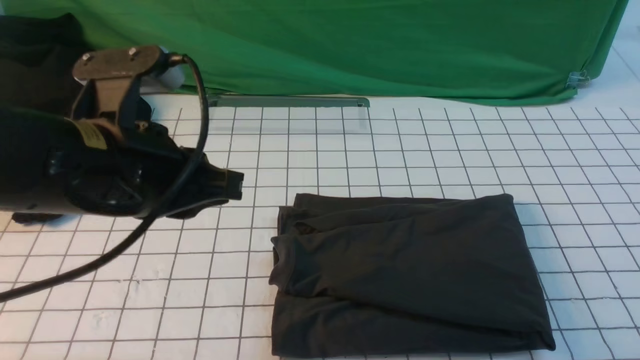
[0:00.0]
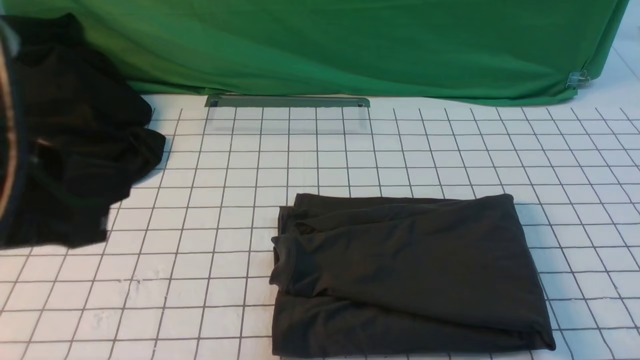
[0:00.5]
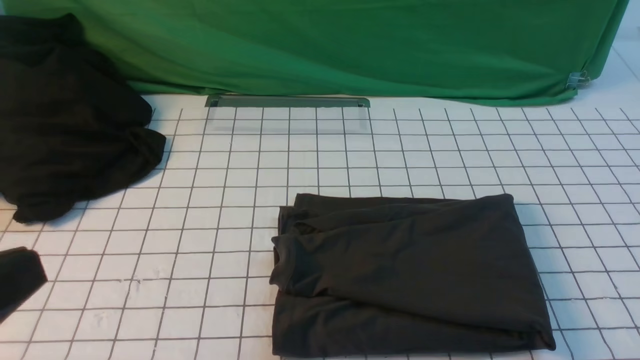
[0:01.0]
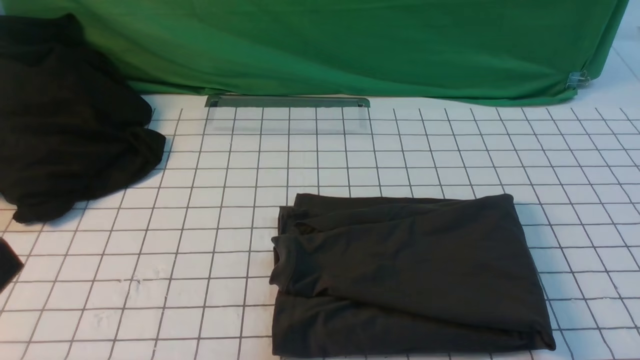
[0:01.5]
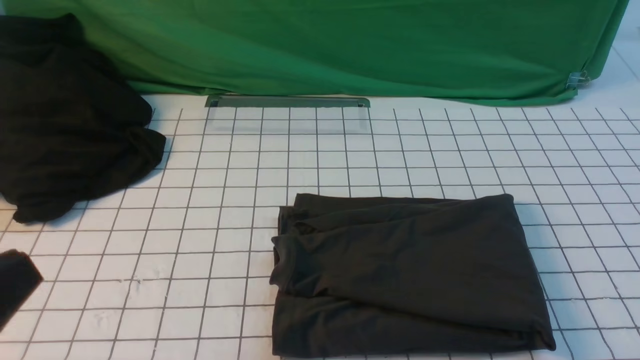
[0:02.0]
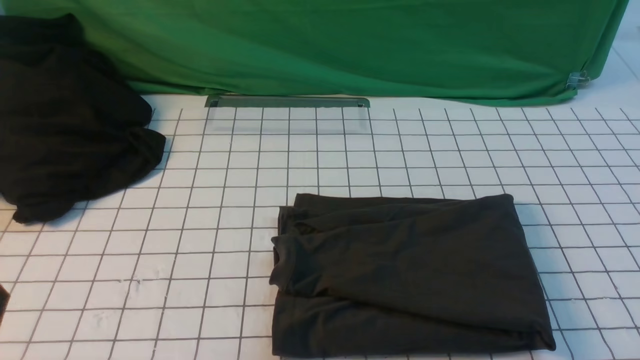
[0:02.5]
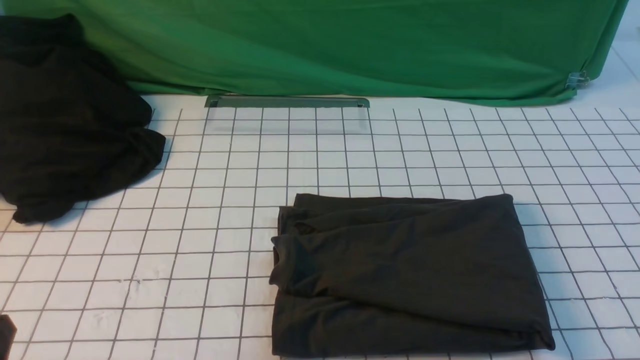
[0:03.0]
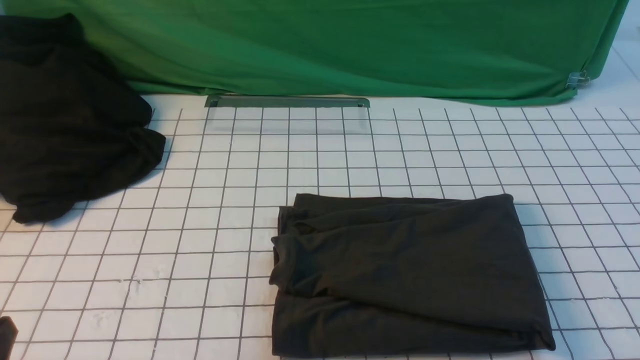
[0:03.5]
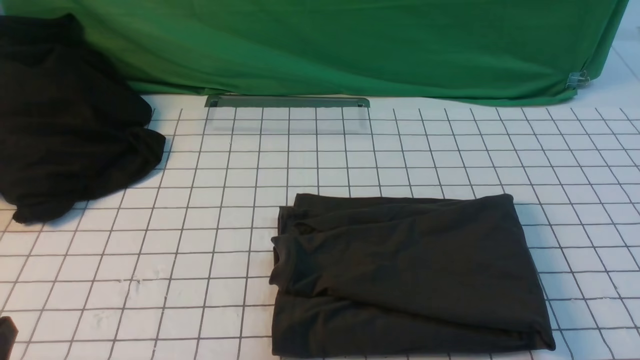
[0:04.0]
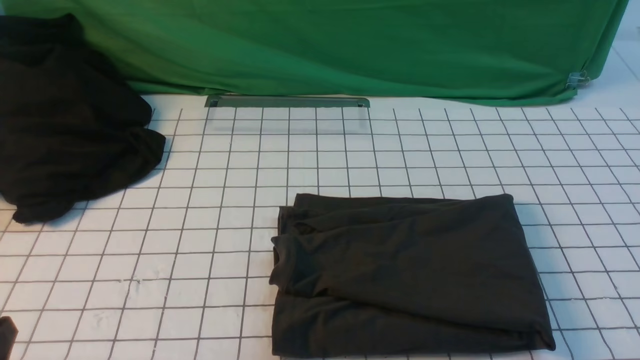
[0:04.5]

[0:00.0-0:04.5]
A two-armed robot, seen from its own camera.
0:00.0 to 0:02.0: The left gripper shifts about 20 cm backward and to the left.
0:02.0 to 0:04.5: The left gripper moves downward, some 10 cm.
